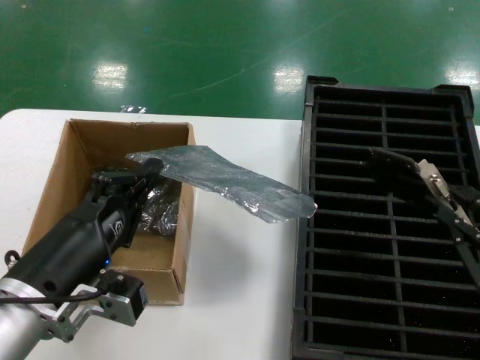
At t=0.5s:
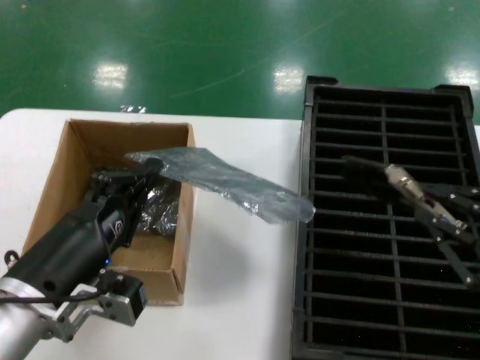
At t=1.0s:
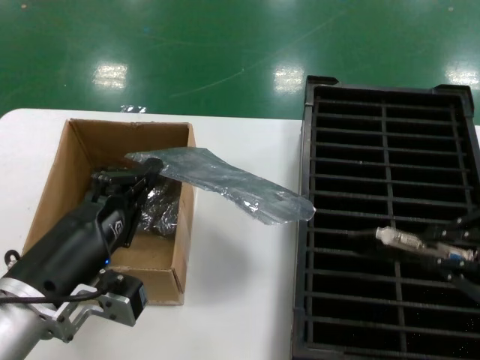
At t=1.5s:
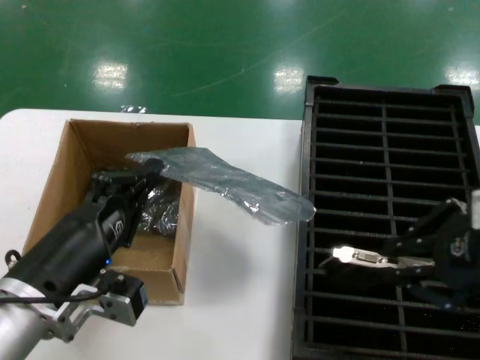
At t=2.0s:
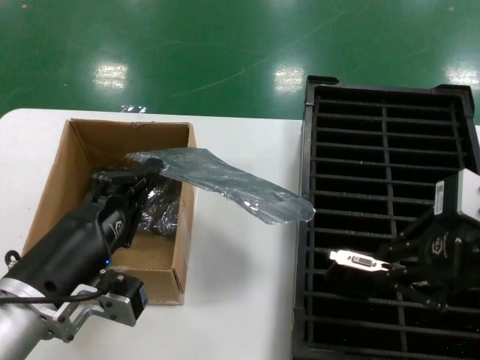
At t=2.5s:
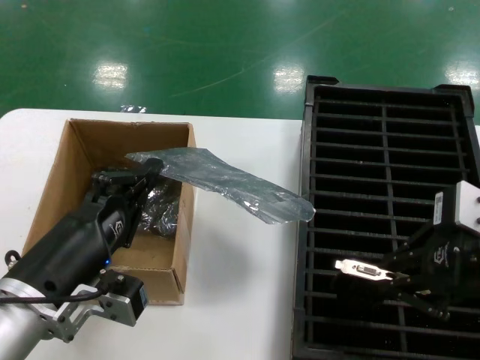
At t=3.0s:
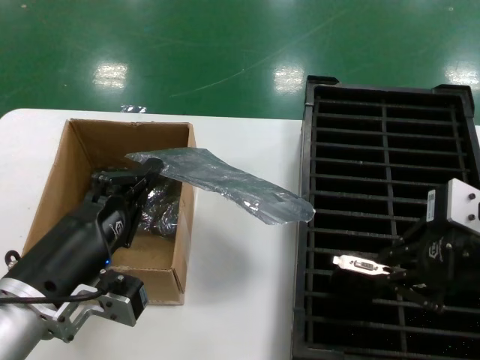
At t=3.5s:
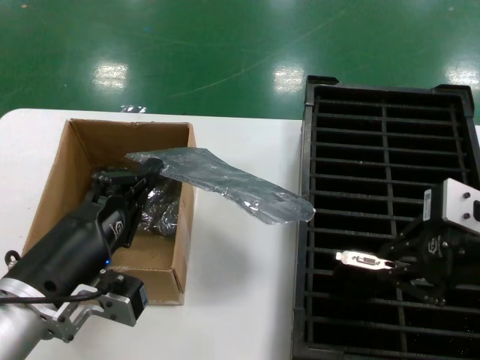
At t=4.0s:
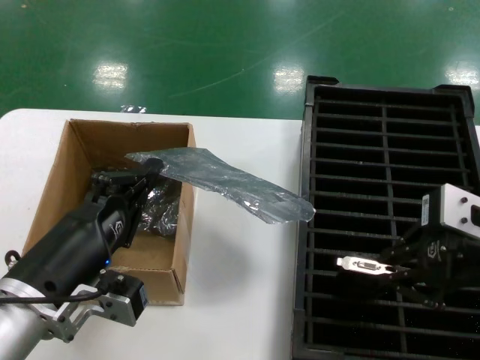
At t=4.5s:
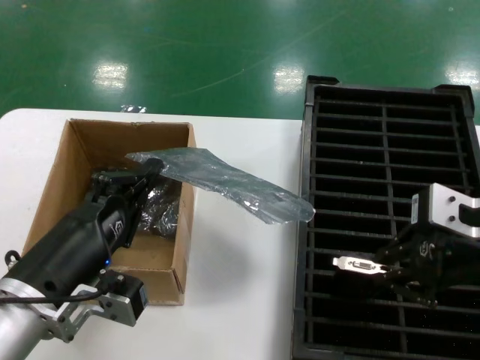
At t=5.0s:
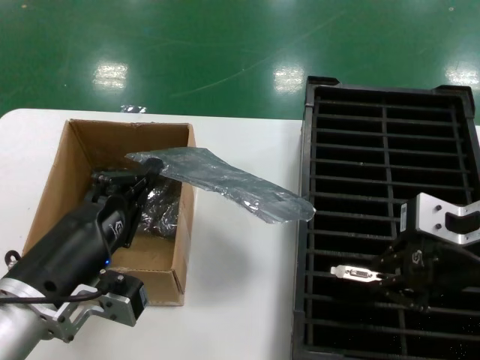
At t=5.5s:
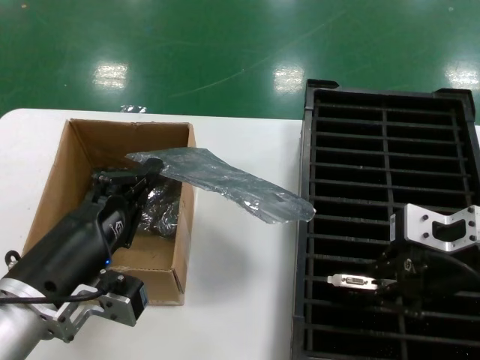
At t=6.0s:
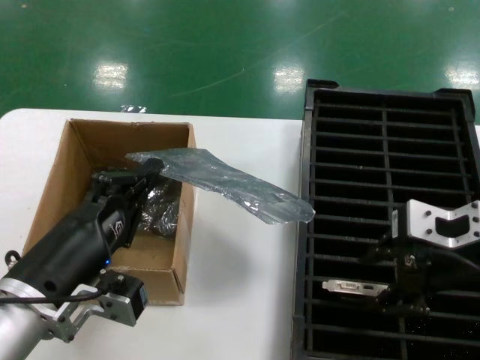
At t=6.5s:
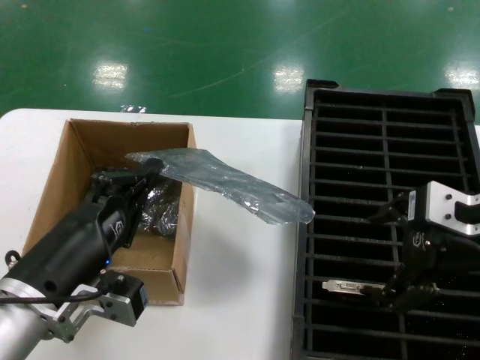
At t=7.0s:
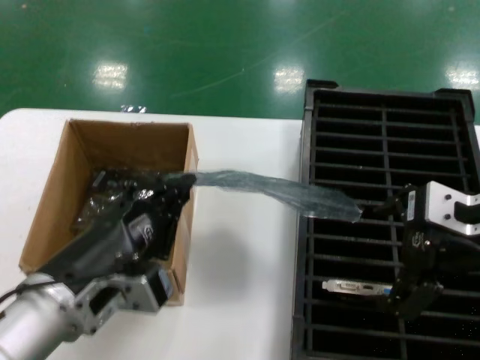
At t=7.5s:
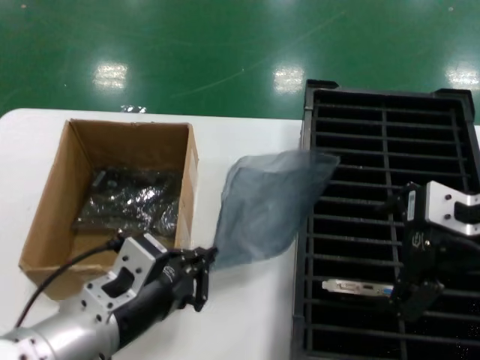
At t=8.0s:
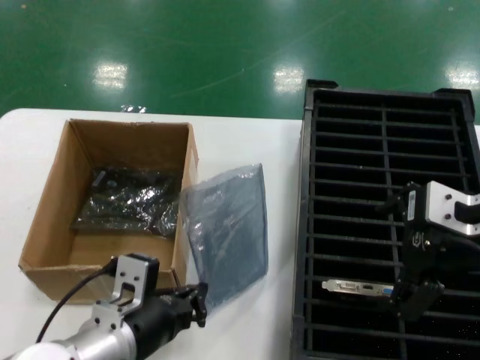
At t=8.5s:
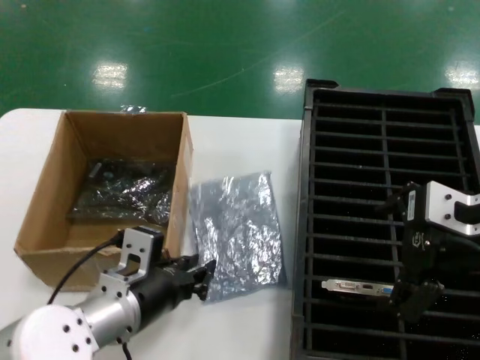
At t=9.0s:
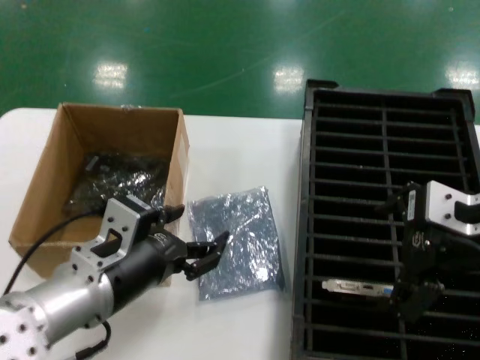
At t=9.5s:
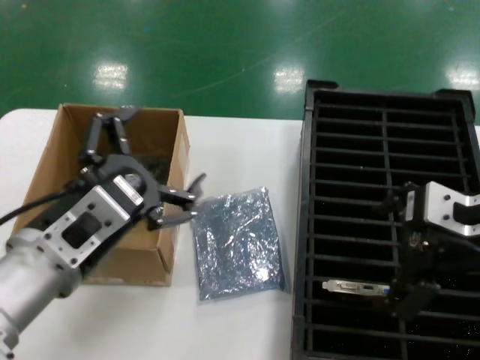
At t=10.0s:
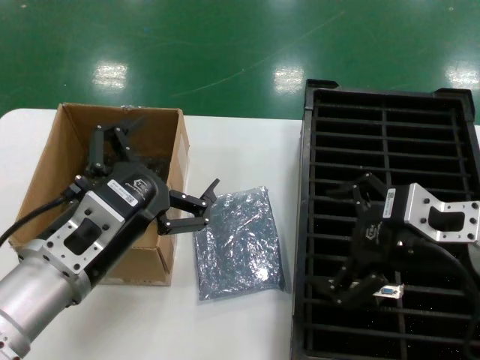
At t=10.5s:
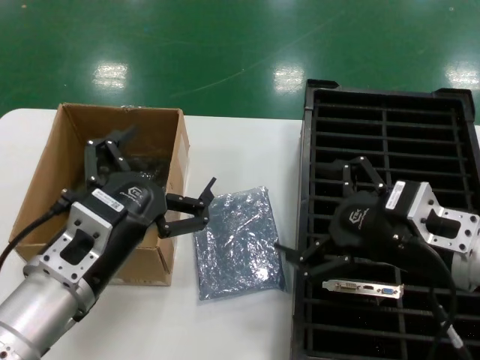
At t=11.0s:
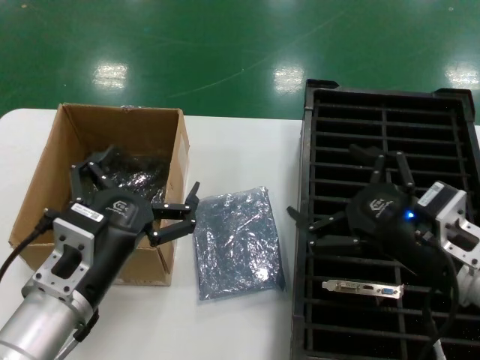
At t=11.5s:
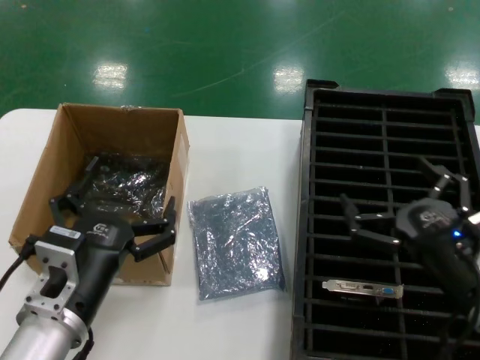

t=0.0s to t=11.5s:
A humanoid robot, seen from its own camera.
Task of the whole recording: take out graphics card from box remove packaging put into black container.
Step, t=0.0s to t=6.0s: Place the hard disk in the hard disk enclosure.
Step, t=6.5s to t=8.5s: Place the down the bag.
t=0.0s to t=2.0s: The right hand travels upward, forward and to the left by approximately 20 cm.
t=2.0s to t=4.0s: There are only small adjustments of the hands.
t=4.0s to t=6.0s: The right hand changes place by roughly 5 cm.
t=7.5s to t=9.5s: The left hand moves upward, roughly 5 cm.
t=9.5s to t=11.5s: The hands both shift downward by about 15 cm.
